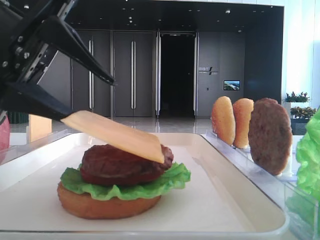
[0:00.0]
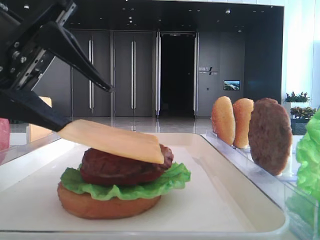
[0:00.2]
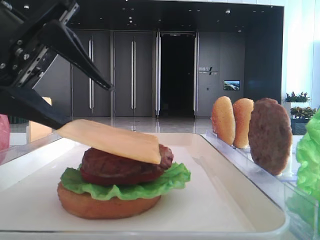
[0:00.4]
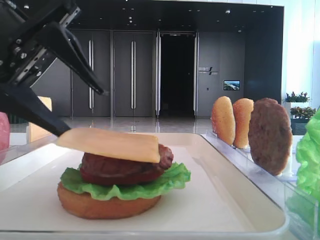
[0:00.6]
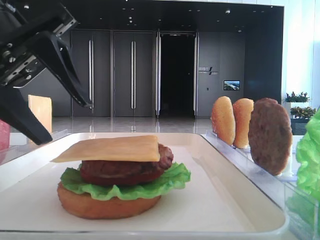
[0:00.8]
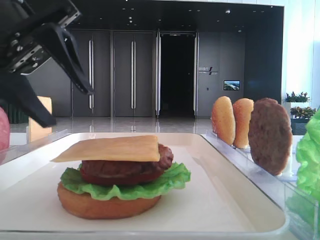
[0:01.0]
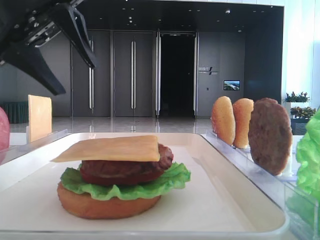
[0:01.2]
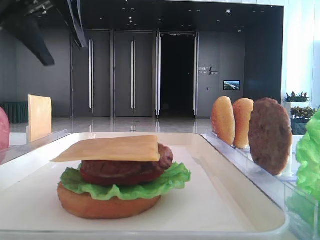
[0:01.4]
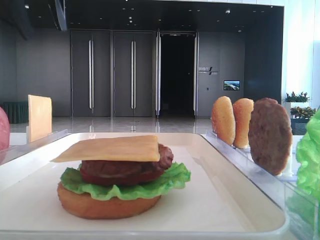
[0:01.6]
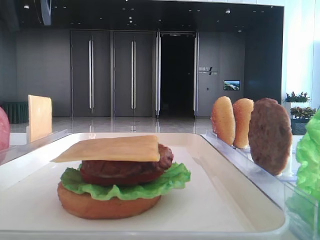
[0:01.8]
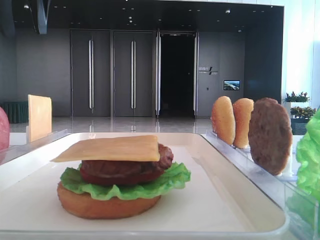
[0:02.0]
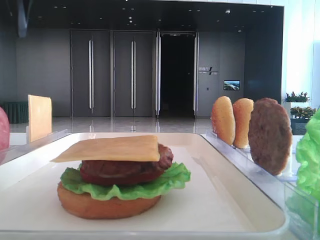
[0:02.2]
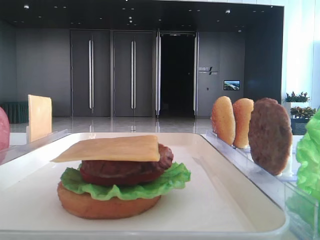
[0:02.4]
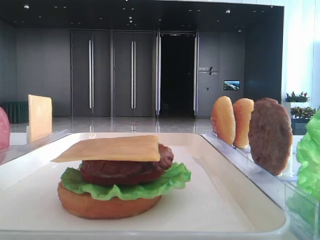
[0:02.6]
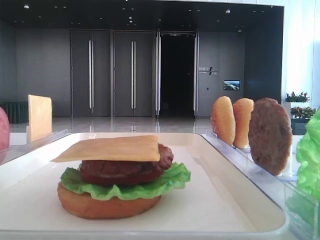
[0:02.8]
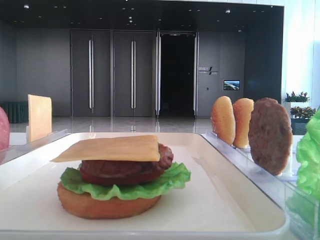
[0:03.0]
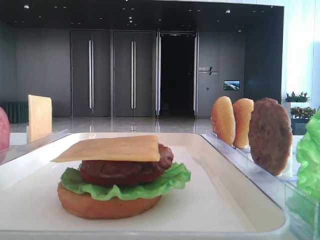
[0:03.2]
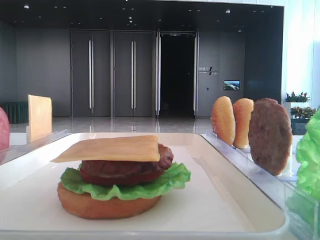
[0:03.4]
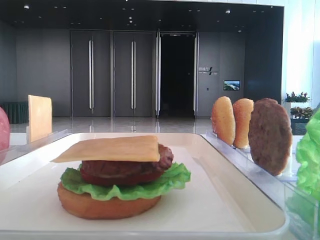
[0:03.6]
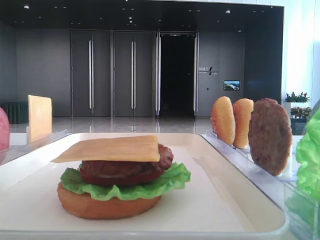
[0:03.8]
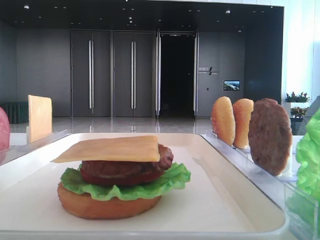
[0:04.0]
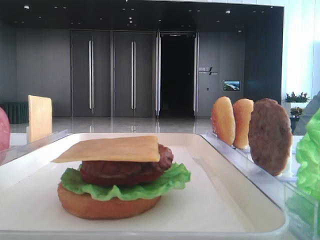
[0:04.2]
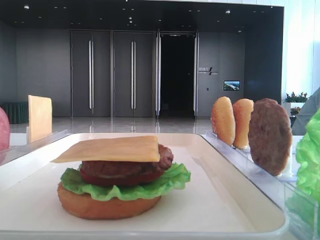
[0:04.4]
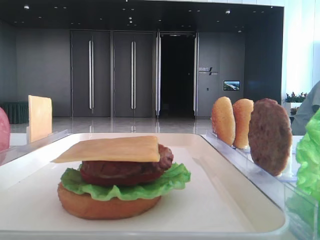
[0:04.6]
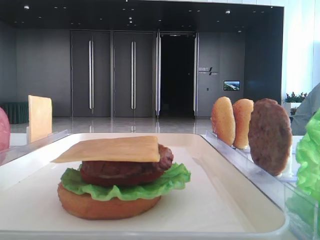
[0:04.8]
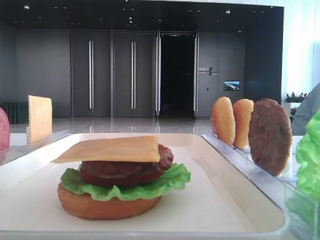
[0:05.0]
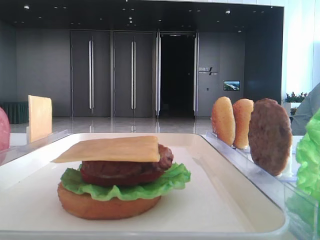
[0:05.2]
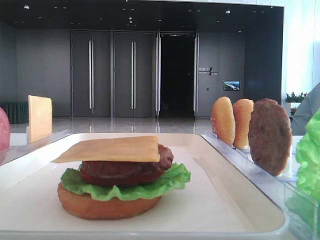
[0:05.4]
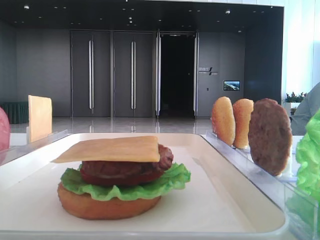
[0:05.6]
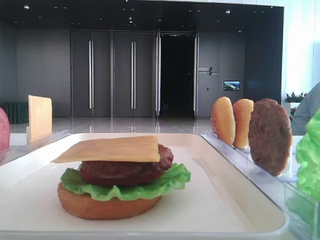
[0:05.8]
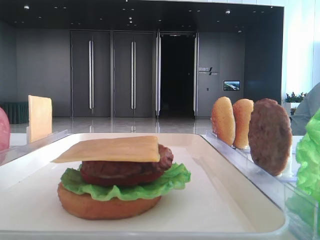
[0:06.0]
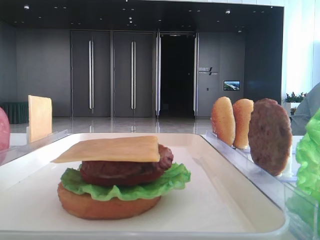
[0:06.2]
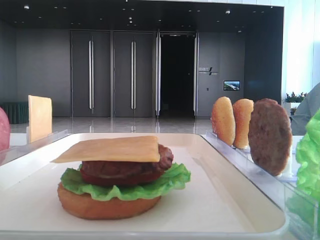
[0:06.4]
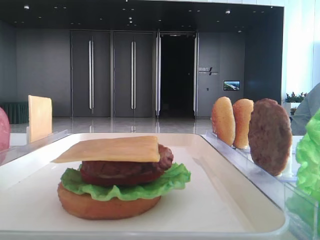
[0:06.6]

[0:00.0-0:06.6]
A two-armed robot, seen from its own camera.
0:00.0 to 0:01.6: The left gripper is displaced upward and forward by roughly 20 cm.
0:03.2 to 0:05.0: The left gripper heads backward, covering roughly 35 cm.

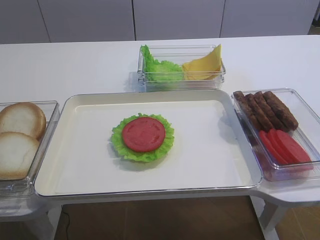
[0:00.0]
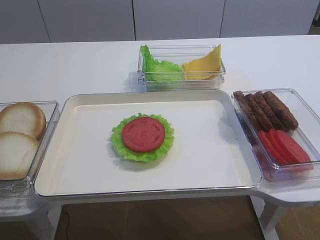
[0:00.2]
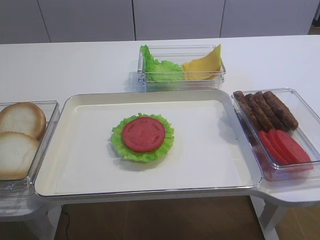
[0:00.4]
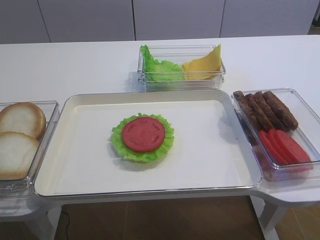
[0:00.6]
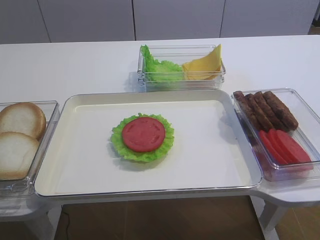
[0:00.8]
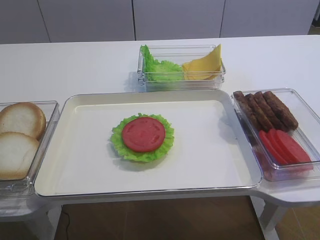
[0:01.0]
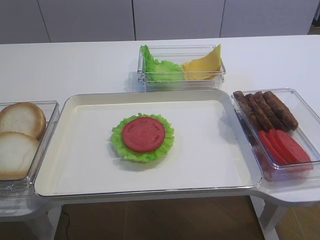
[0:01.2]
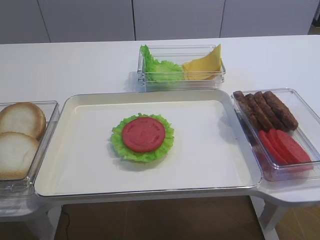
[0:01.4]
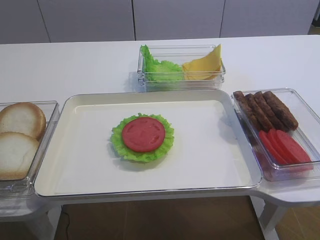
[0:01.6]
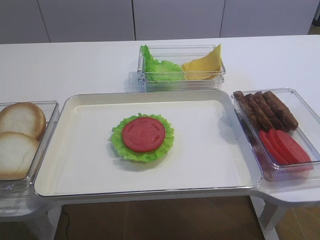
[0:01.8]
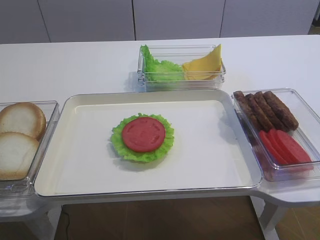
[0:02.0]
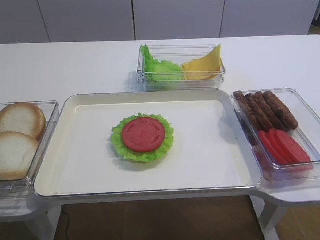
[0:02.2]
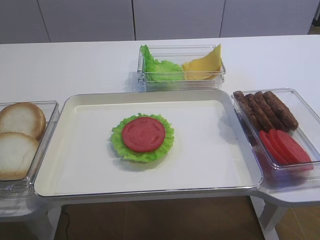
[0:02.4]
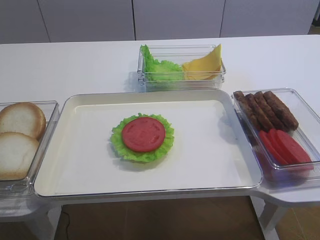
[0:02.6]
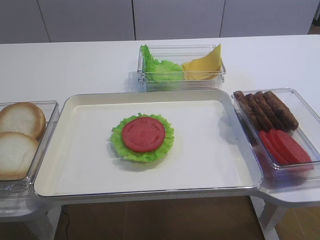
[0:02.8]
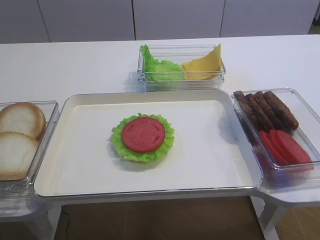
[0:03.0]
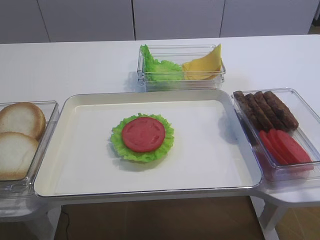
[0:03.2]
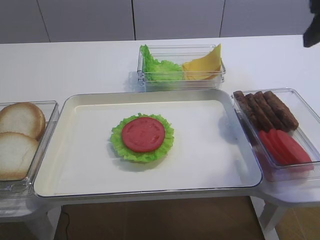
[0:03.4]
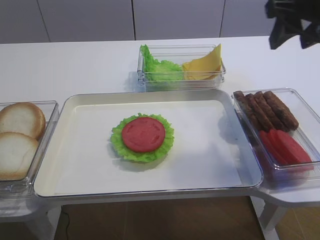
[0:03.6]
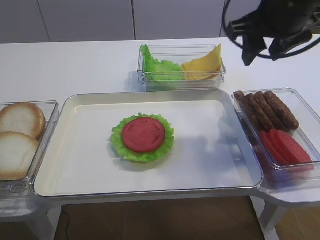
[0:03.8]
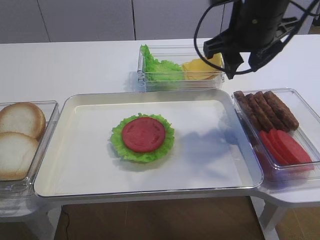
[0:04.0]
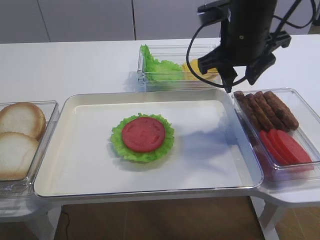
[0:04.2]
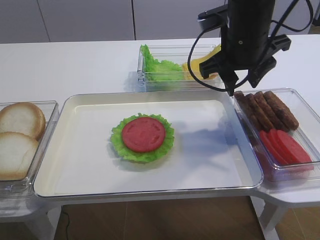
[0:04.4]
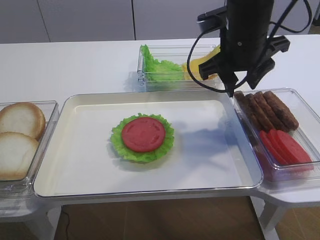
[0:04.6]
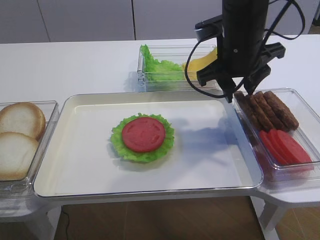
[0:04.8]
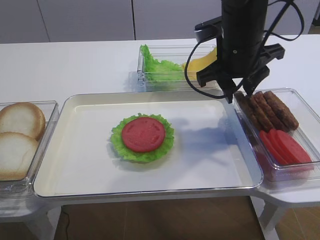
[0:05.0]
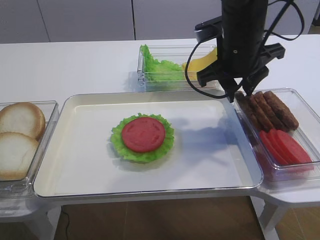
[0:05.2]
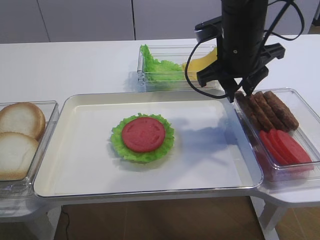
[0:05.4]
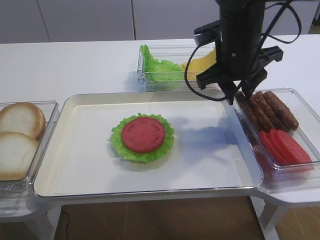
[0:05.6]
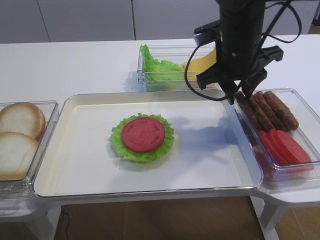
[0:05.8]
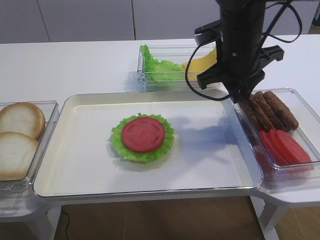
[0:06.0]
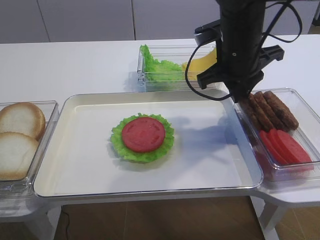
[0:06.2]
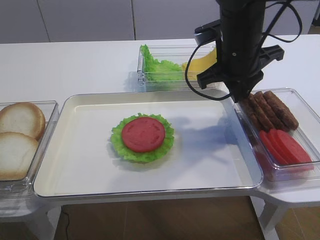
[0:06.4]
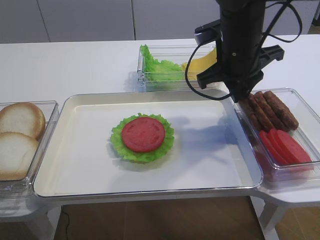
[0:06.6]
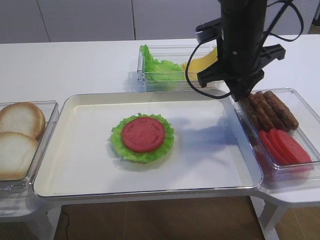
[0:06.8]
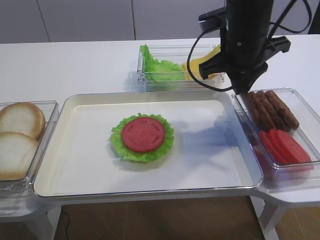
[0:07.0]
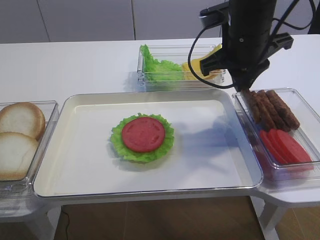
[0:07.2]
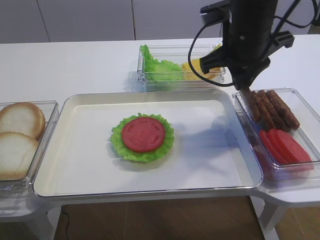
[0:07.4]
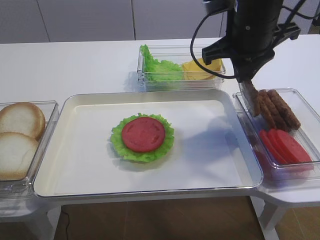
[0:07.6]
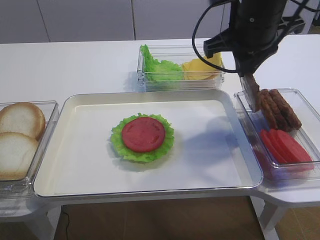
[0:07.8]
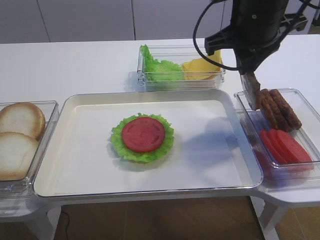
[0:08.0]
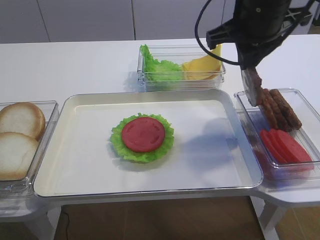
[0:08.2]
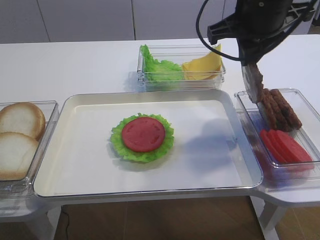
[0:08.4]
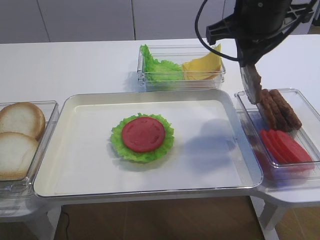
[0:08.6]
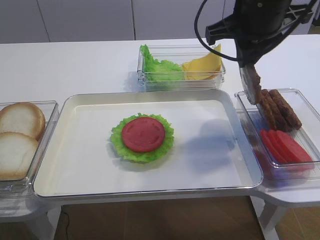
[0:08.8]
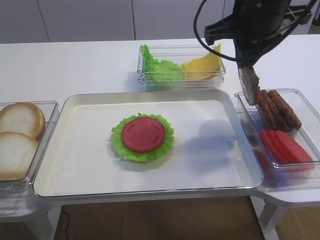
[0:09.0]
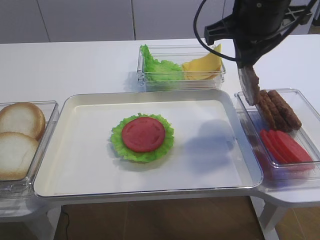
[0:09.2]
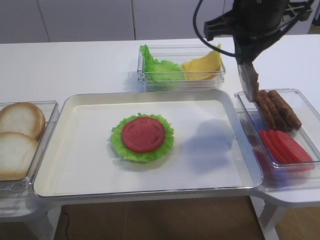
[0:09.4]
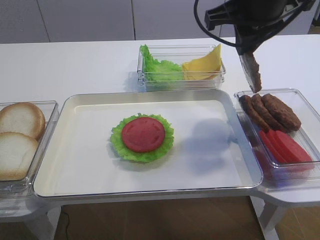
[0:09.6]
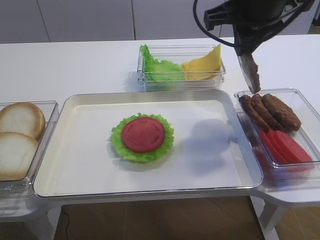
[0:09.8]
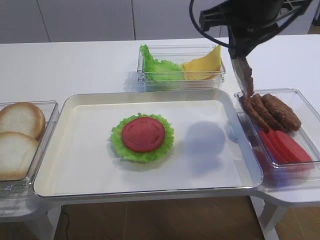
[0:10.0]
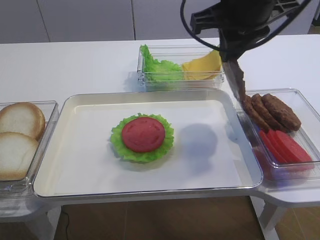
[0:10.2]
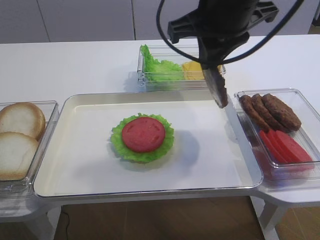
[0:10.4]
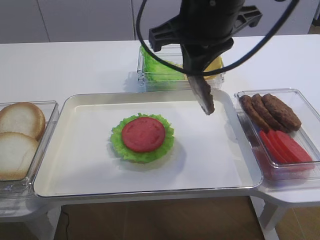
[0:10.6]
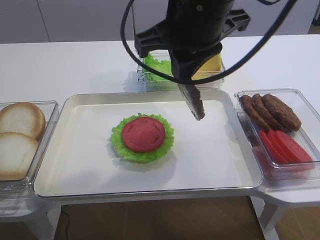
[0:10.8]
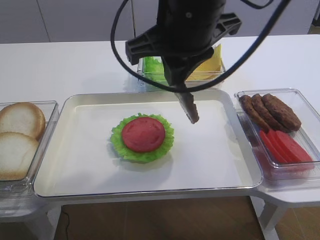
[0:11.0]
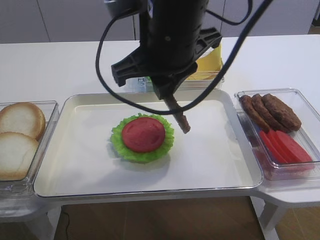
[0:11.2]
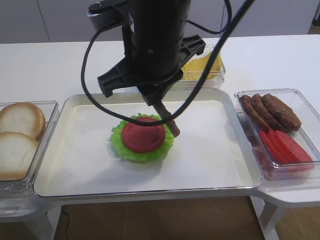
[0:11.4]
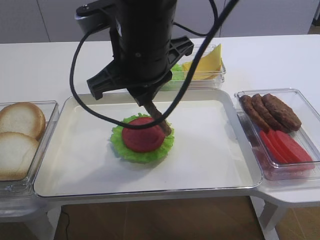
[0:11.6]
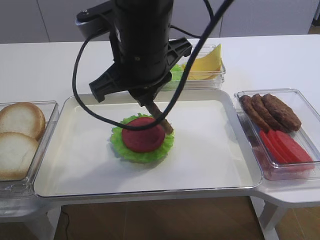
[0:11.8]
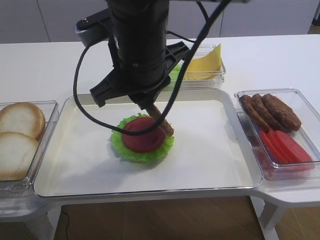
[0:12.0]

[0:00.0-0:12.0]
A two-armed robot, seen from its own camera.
Step, 0:00.0 to 0:07.4: Pick up the cutlet with the right gripper.
0:01.6 to 0:03.0: The right gripper goes about 15 cm forward.
0:03.0 to 0:04.4: The right gripper goes some 25 cm forward and to the left.
0:04.4 to 0:06.0: The right gripper closes.
0:06.0 to 0:07.6: There are only small adjustments of the grippers.
0:07.6 to 0:09.0: The grippers move only a little.
0:09.0 to 0:10.4: The right gripper shifts by approximately 5 cm.
0:10.4 to 0:12.0: The right gripper heads to the left and downward, covering roughly 10 cm.

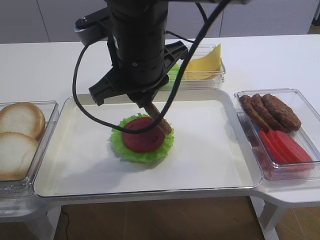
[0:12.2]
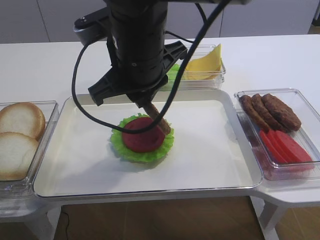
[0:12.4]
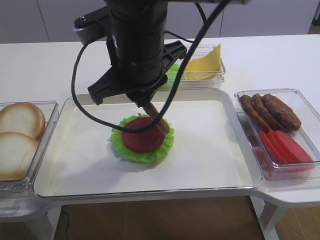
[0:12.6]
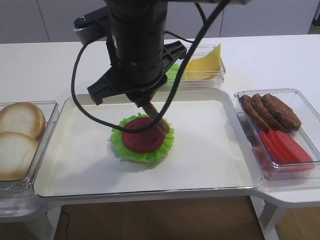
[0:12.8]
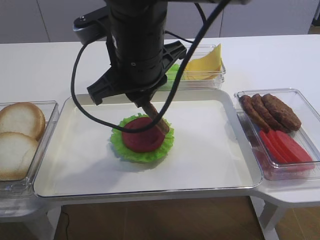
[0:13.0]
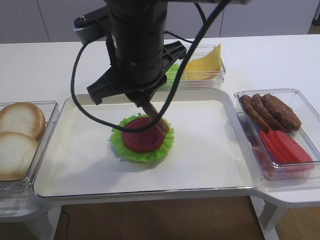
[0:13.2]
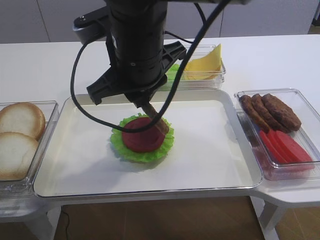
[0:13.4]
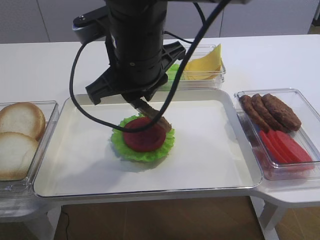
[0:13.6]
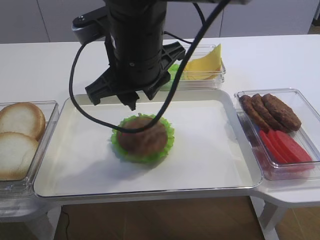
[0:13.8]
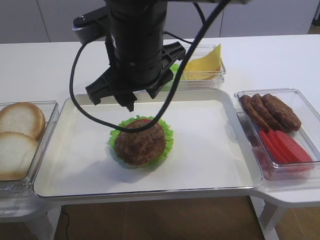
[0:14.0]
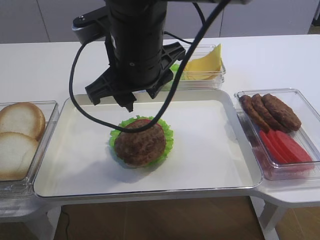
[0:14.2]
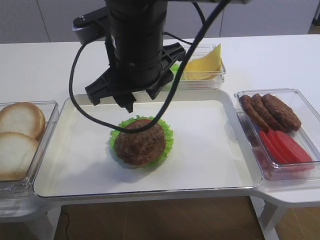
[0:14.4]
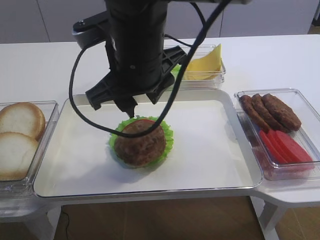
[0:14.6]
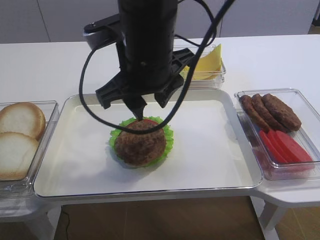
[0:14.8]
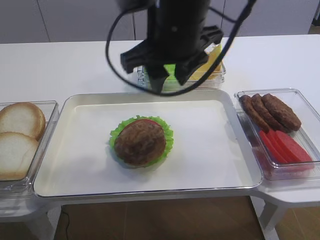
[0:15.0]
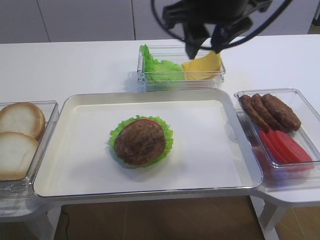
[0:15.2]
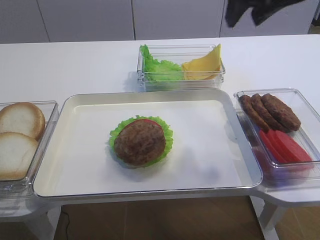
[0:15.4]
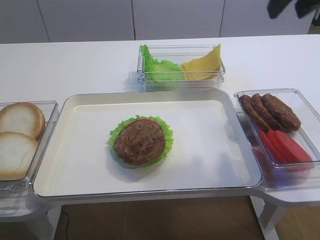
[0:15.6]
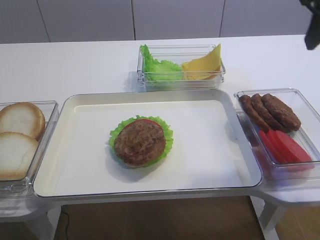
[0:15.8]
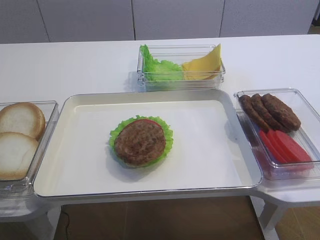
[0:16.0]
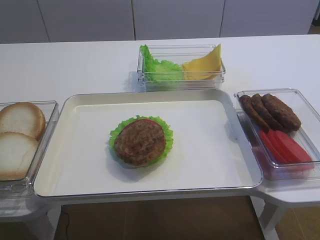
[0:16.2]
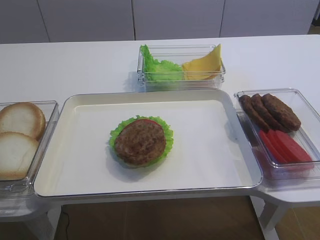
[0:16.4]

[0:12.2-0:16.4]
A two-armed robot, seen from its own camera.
0:12.2 to 0:13.6: Neither gripper changes place.
0:13.6 to 0:15.0: The right gripper changes place by approximately 5 cm, and opens its fingers.
0:15.0 to 0:16.4: The right gripper heads to the right and backward, covering some 30 cm.
